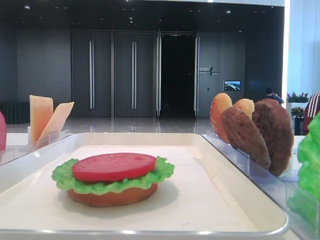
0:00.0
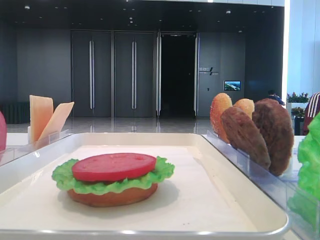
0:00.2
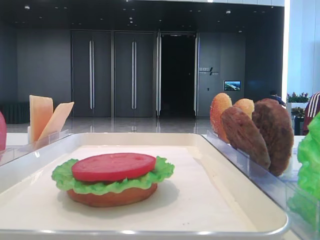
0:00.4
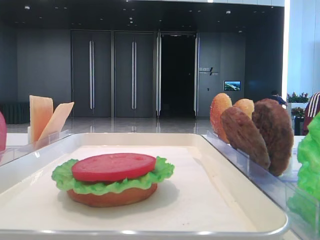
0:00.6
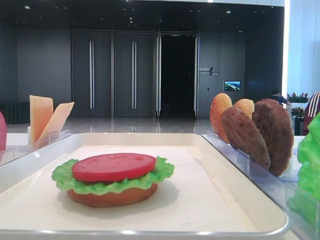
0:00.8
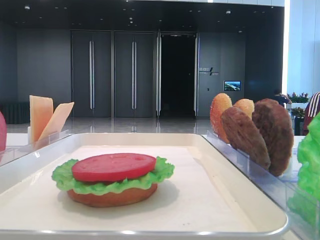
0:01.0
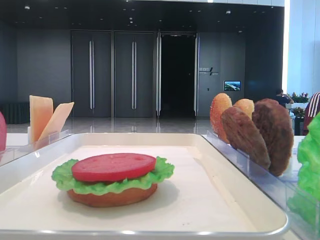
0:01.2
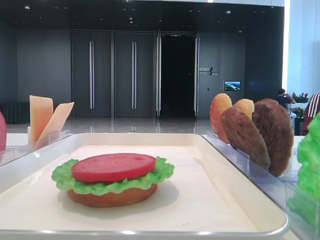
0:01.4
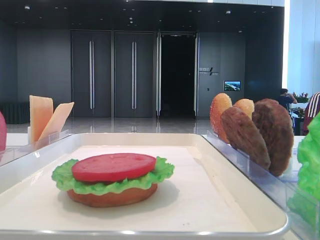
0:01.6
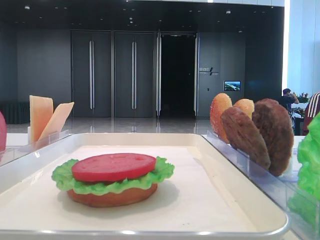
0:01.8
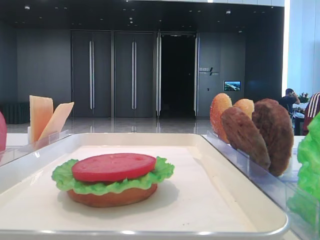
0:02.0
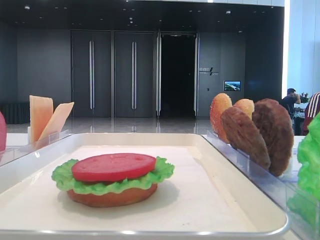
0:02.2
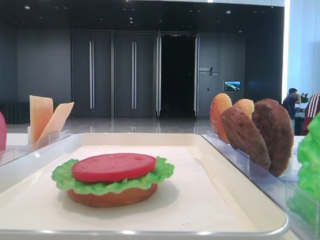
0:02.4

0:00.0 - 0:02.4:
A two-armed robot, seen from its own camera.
0:01.2 - 0:02.4: Neither gripper changes place.

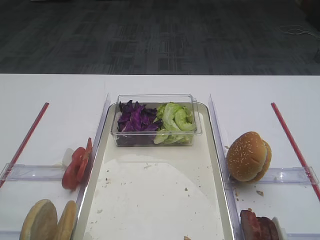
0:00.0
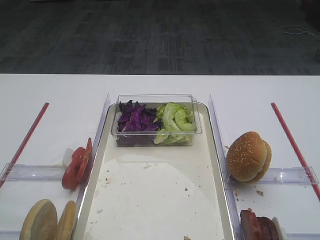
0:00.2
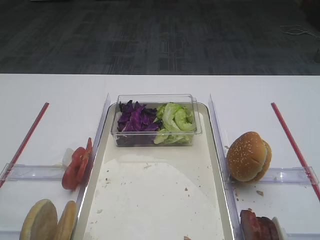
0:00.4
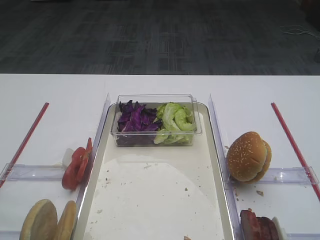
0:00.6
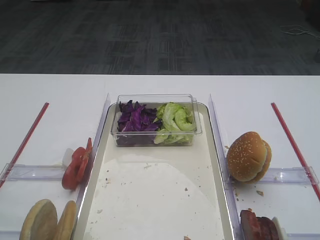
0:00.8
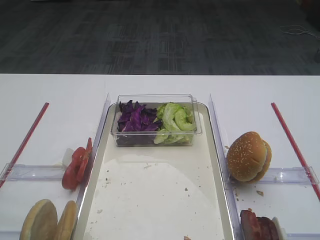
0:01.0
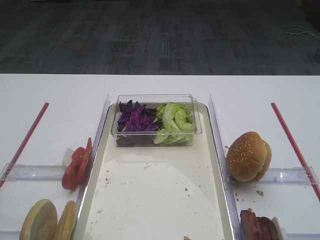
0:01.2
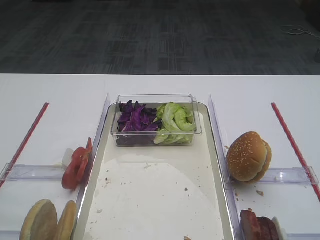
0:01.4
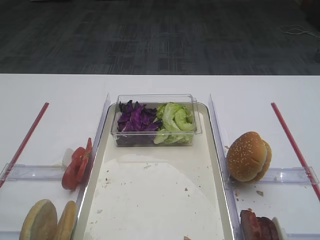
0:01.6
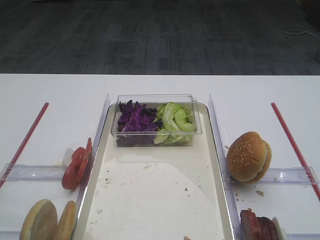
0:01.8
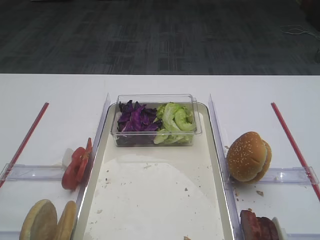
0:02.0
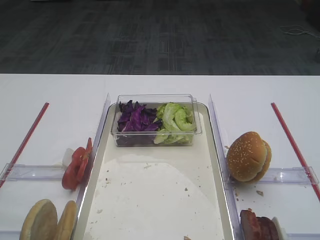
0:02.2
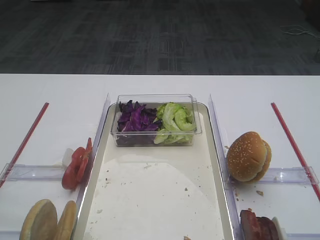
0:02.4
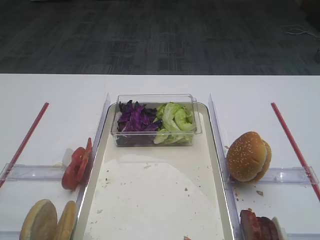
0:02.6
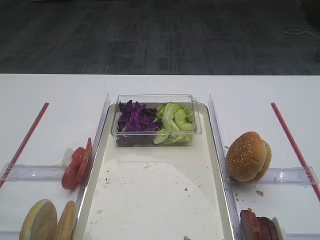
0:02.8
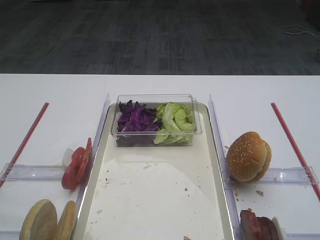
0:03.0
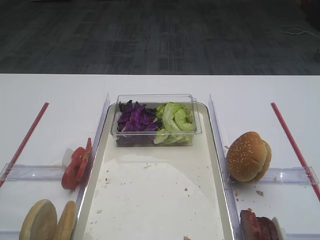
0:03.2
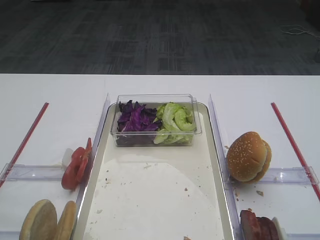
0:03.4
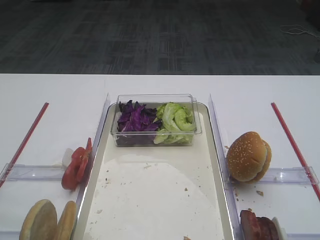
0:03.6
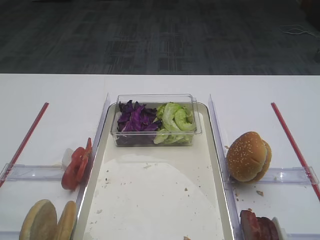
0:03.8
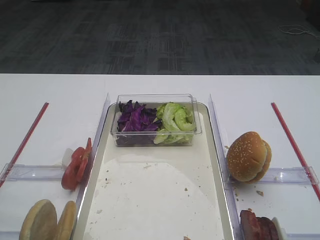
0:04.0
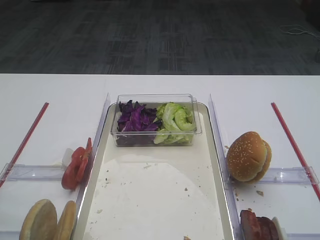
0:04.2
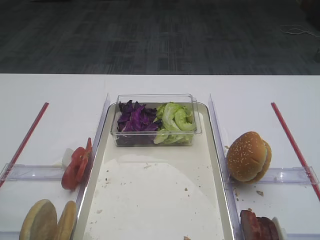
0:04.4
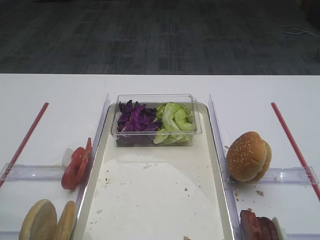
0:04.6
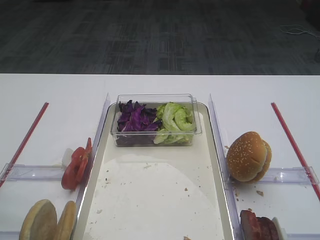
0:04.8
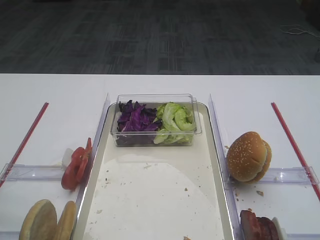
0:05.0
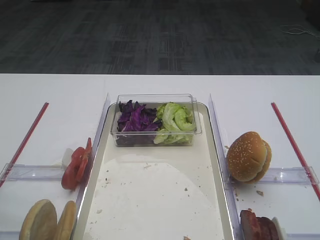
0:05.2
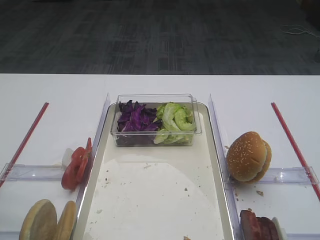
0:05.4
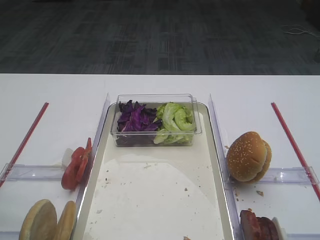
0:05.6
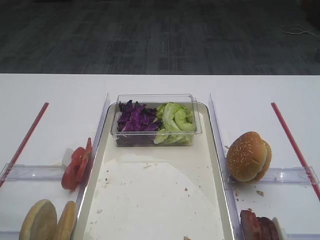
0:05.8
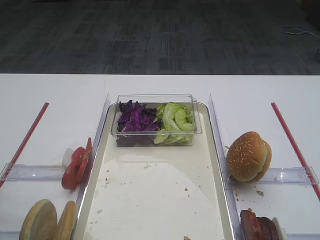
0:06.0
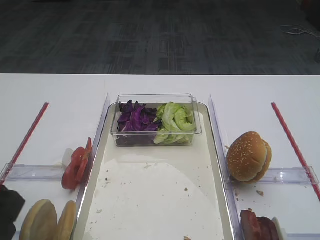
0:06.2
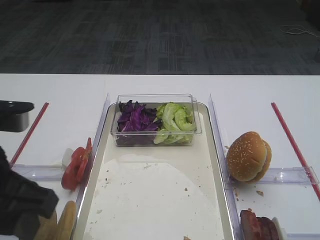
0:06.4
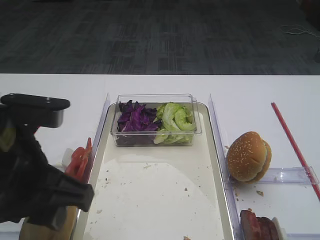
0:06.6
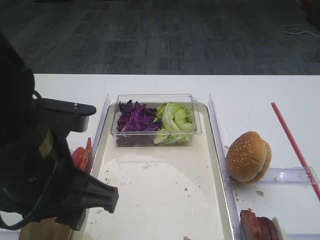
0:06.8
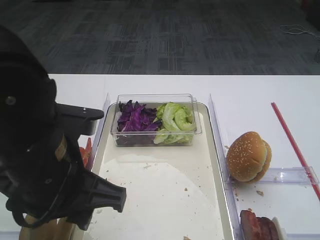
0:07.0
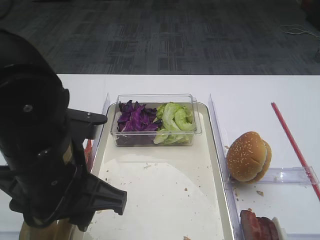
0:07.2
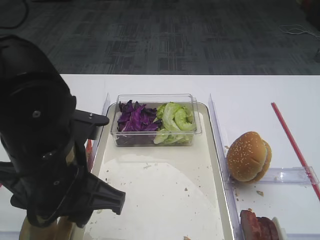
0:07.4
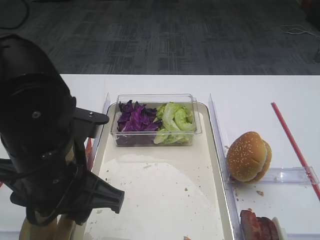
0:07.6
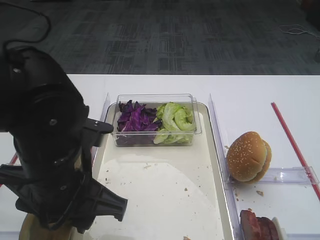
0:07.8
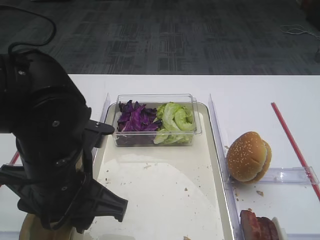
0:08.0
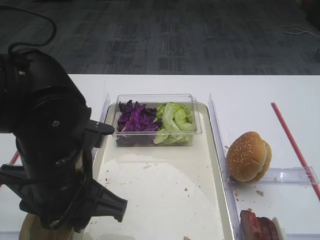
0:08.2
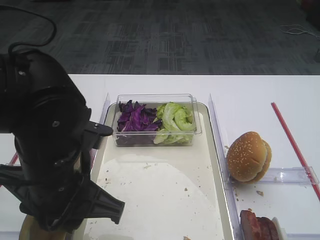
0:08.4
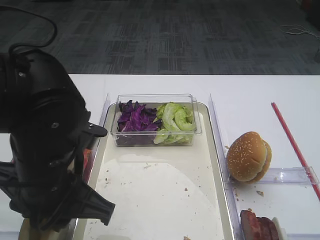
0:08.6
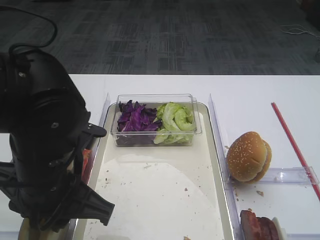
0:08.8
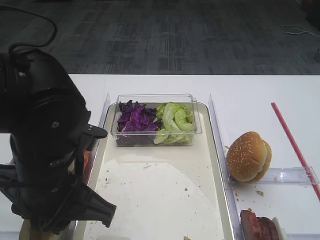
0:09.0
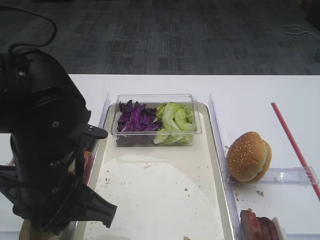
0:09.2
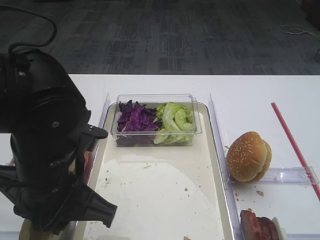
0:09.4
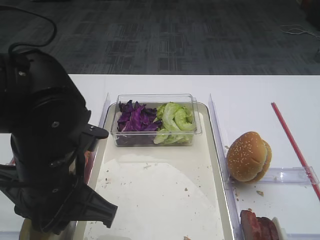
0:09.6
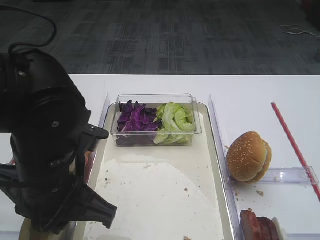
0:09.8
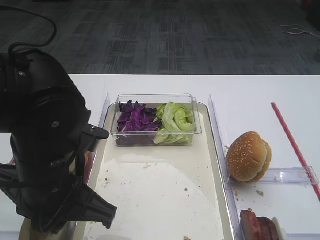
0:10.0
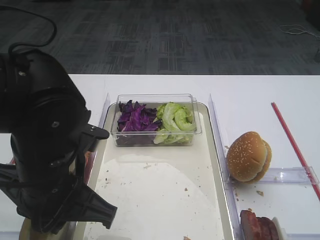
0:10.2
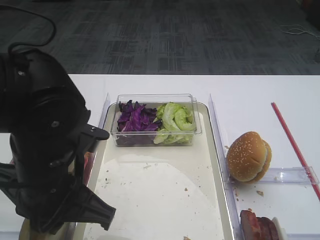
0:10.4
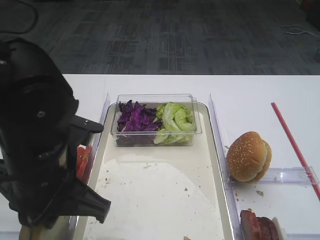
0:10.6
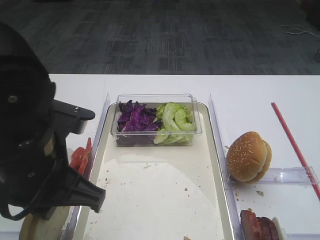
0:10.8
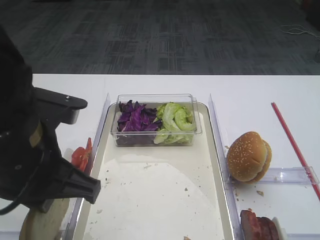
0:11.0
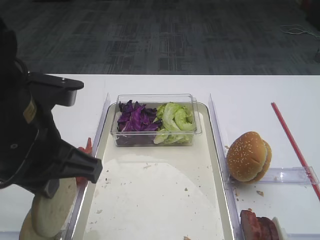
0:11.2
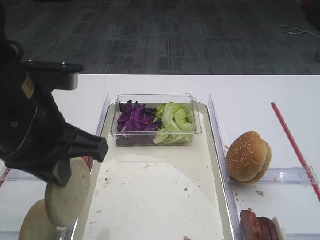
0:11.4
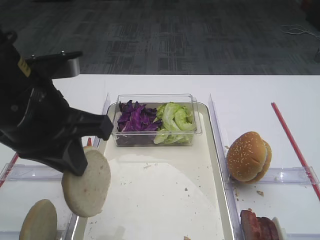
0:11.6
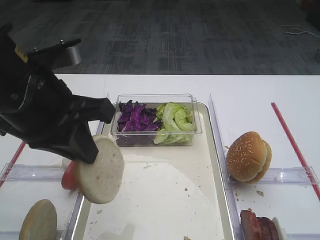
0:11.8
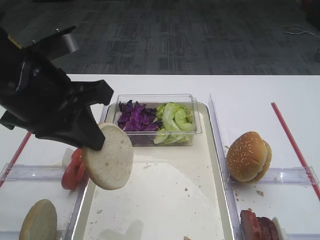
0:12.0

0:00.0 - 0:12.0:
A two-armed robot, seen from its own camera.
Step, 0:00.0 - 0:11.0: Pick up the bread slice with the left gripper.
0:06.0 - 0:07.6: The left gripper is displaced to the right by some 15 cm.
0:07.6 - 0:09.0: The left gripper closes.
0:09.0 - 0:10.4: Neither gripper changes place.
0:10.4 - 0:12.0: The left gripper is displaced upward by roughly 10 cm.

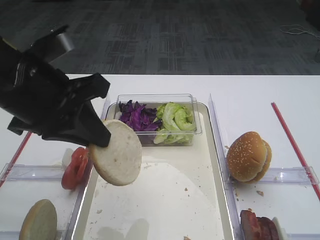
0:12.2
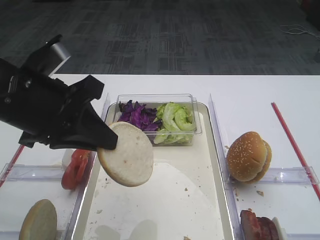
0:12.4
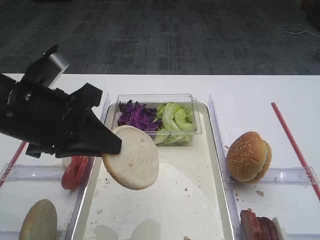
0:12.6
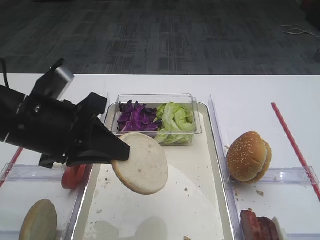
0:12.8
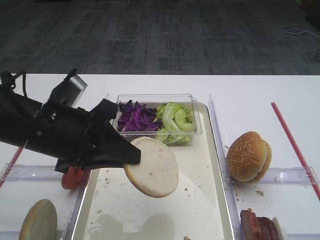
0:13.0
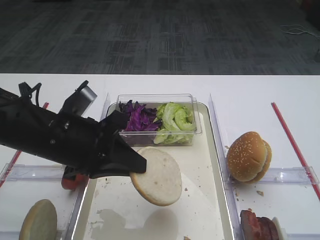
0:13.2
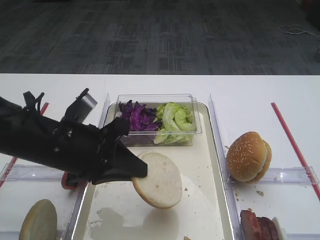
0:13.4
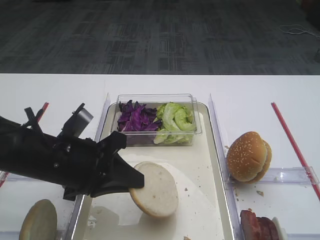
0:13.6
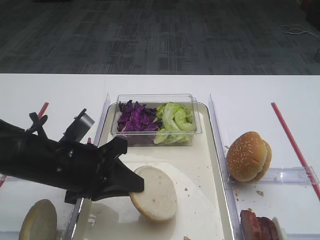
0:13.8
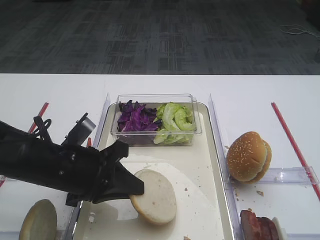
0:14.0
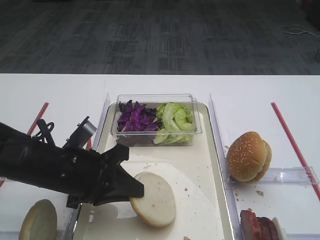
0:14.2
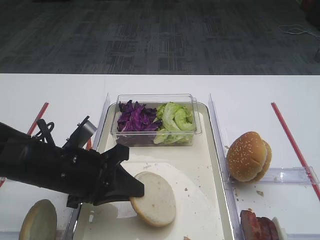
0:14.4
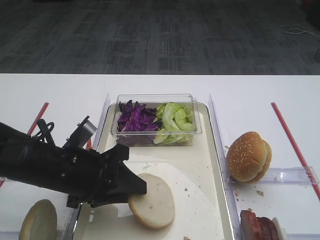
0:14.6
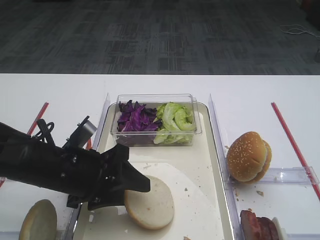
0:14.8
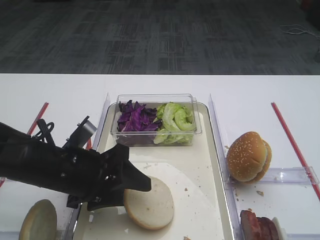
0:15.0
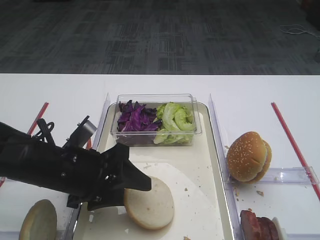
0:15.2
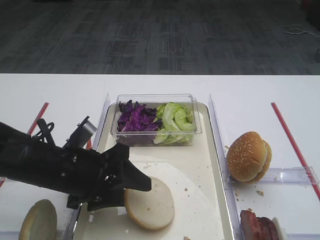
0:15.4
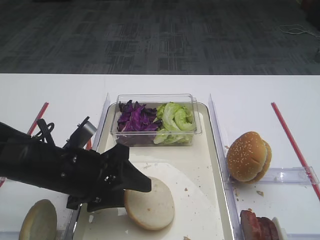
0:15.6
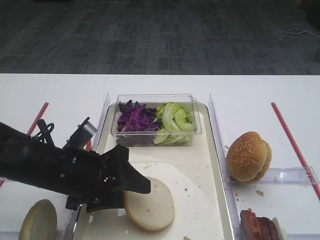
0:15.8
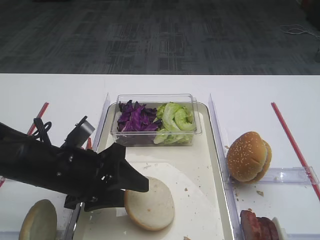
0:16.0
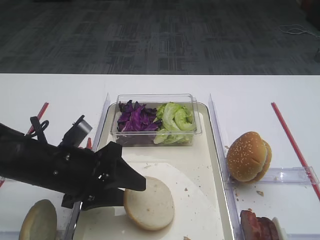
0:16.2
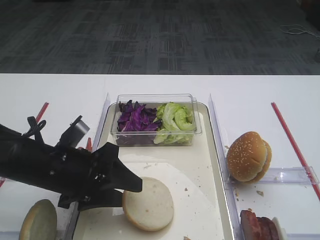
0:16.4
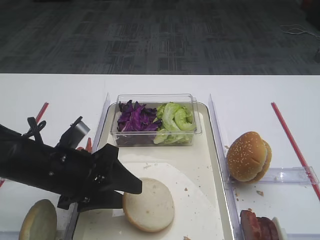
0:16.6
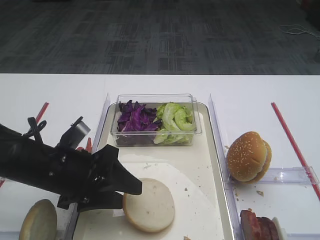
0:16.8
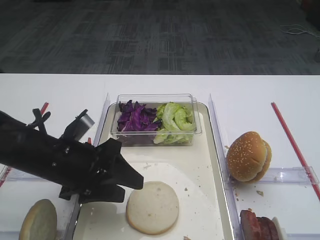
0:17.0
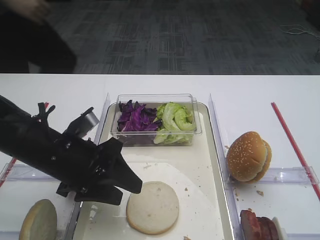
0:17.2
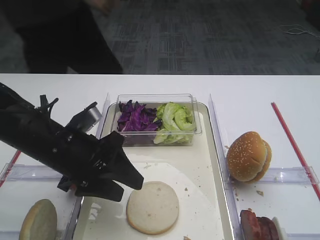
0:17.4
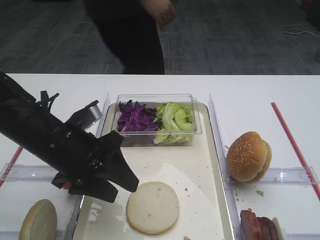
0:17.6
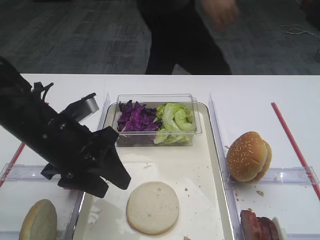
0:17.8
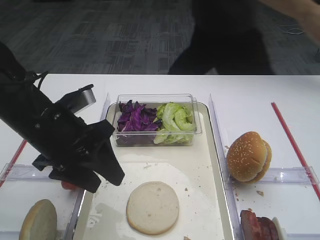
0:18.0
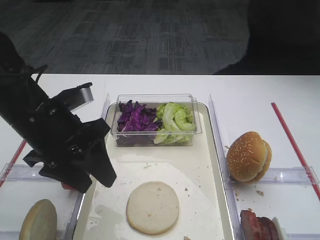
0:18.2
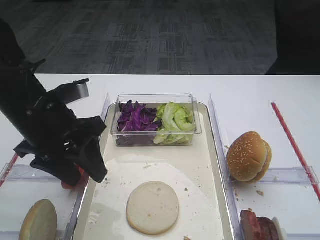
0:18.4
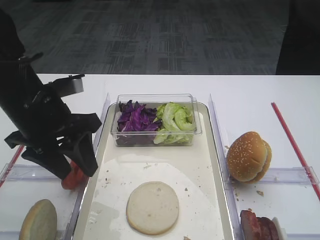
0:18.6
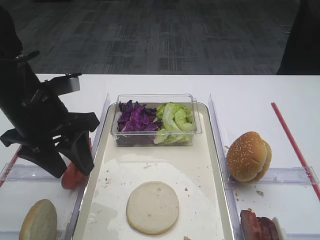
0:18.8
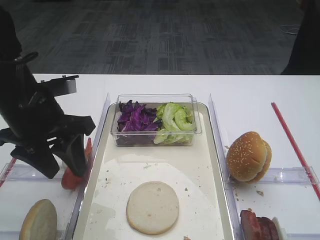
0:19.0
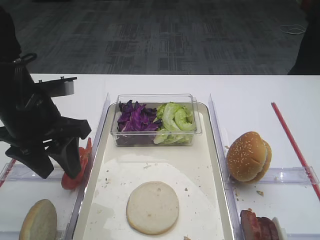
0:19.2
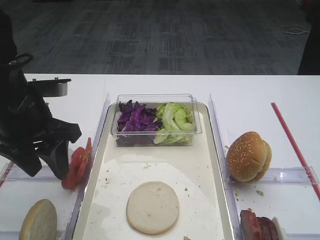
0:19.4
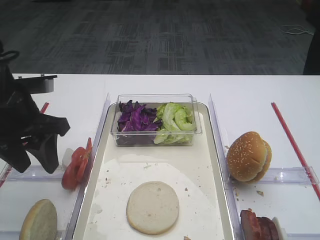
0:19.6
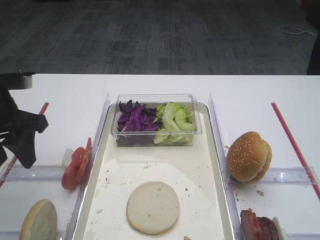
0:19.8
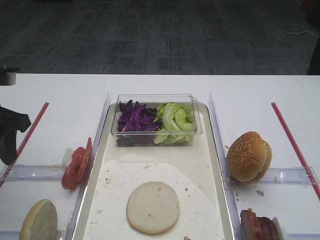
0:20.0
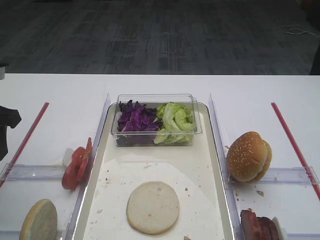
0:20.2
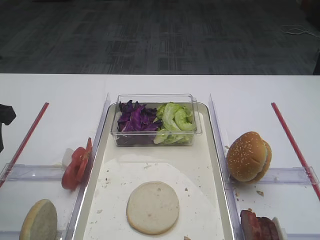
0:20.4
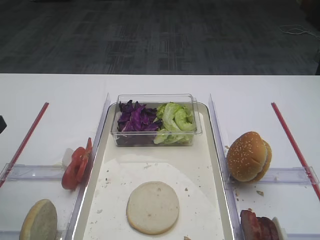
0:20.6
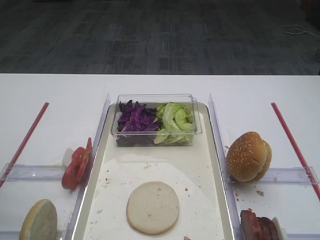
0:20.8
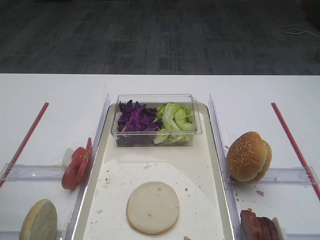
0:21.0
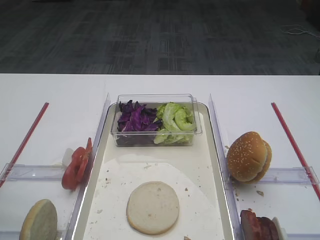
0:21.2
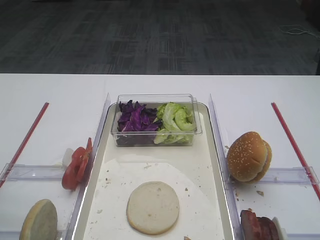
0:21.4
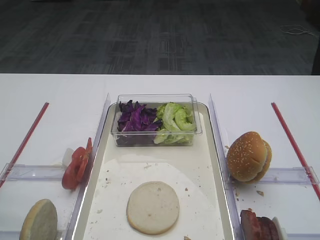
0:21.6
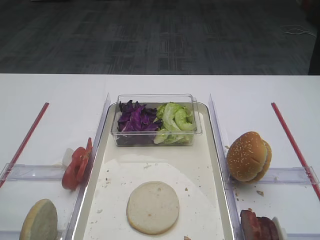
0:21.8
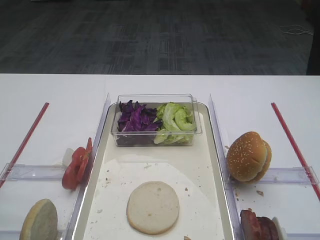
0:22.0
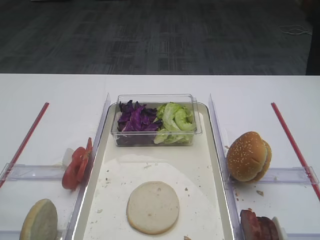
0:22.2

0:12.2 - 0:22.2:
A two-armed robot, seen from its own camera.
Step, 0:12.2 - 0:18.4: Place the bread slice on the tray with the left gripper.
0:12.2 - 0:13.6: The left gripper travels downward by some 10 cm.
0:13.6 - 0:15.0: The left gripper opens up.
0:15.0 - 0:16.4: Both grippers stay put.
0:16.4 - 0:18.0: The left gripper is displaced upward by roughly 5 cm.
0:19.4 - 0:20.8: The left gripper moves to the left, roughly 10 cm.
